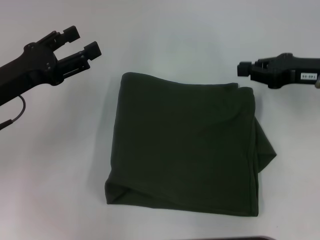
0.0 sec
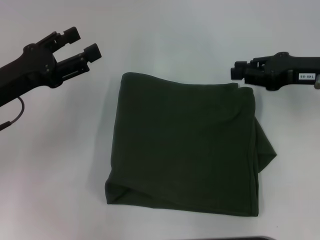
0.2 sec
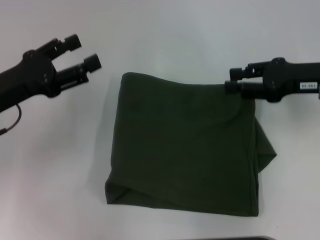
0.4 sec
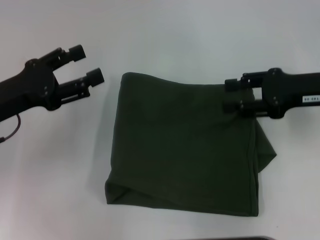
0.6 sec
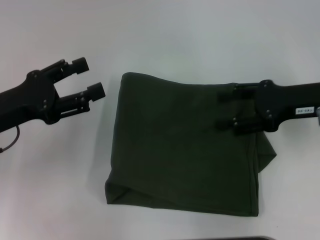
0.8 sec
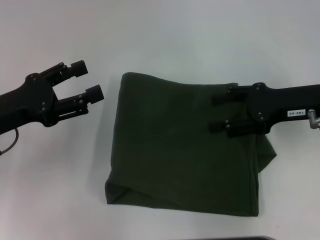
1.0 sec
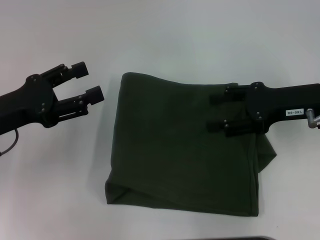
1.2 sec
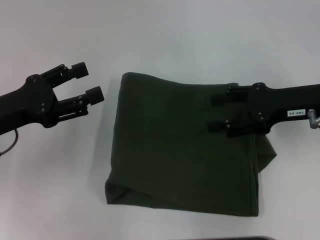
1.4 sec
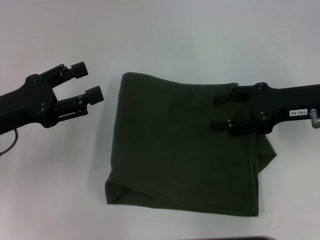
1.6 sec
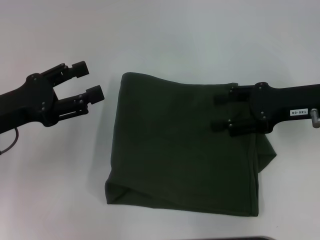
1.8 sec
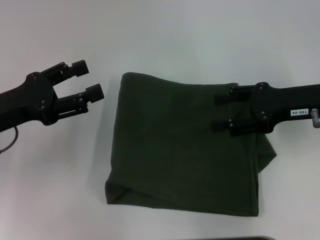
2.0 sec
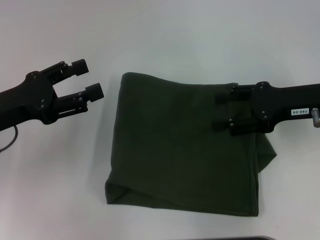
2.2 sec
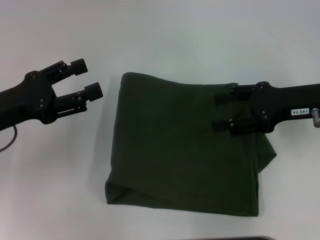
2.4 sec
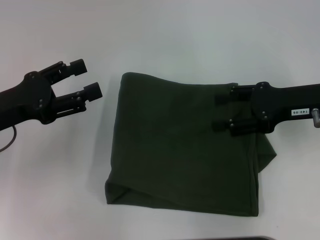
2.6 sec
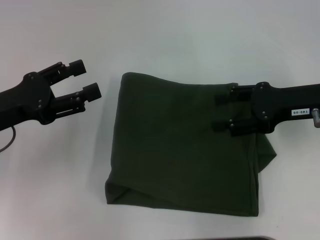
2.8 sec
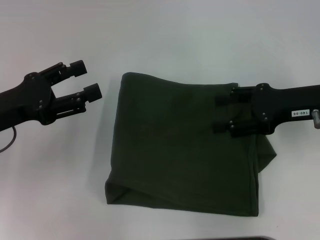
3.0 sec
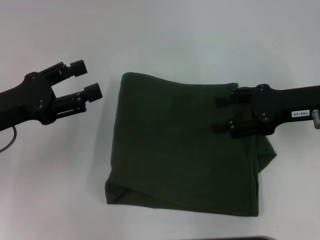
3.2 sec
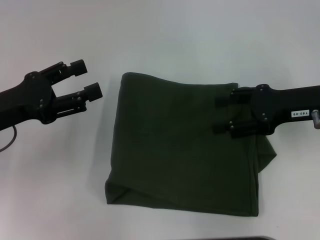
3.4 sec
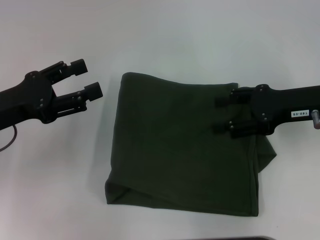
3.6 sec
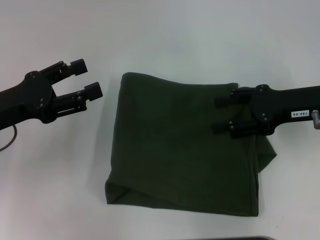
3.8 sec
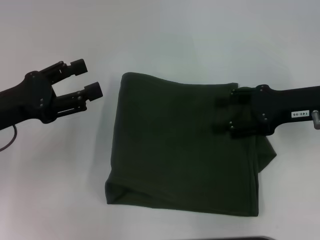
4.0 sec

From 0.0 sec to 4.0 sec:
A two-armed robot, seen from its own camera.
From 0.0 sec to 1.4 sec: The right gripper opens up.
From 1.4 sec to 4.0 sec: Both grippers stay put.
